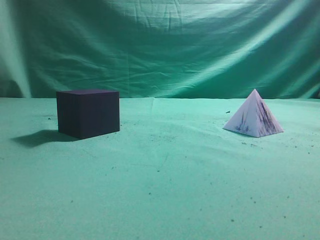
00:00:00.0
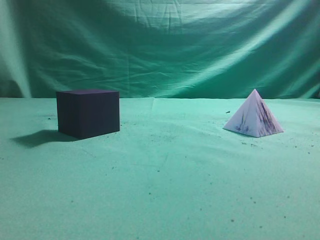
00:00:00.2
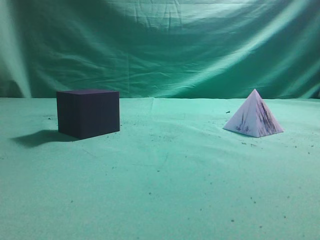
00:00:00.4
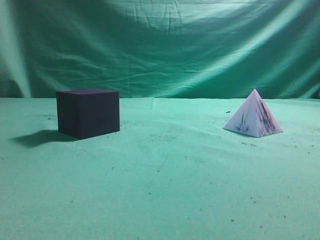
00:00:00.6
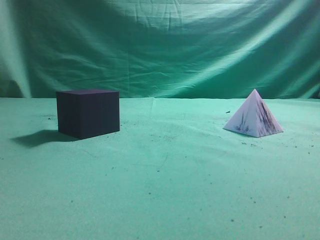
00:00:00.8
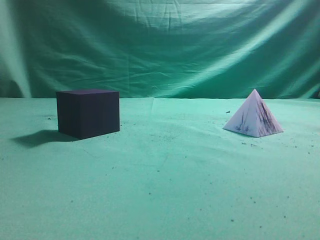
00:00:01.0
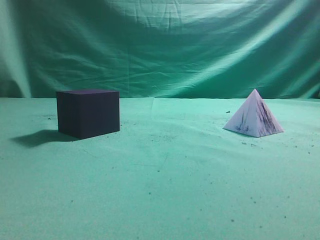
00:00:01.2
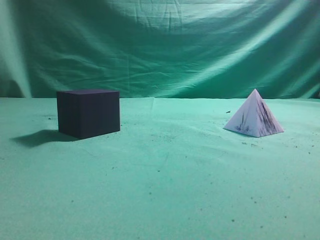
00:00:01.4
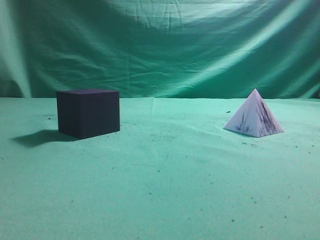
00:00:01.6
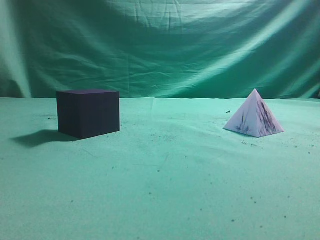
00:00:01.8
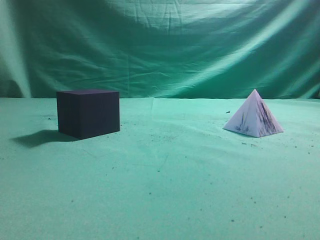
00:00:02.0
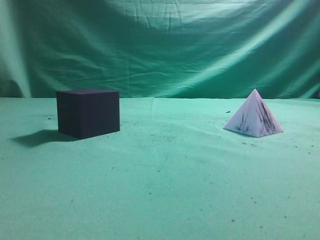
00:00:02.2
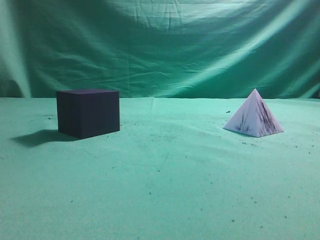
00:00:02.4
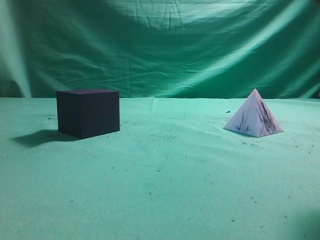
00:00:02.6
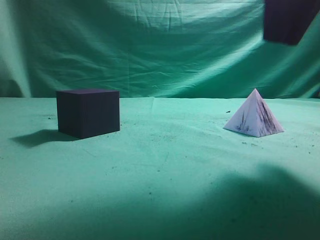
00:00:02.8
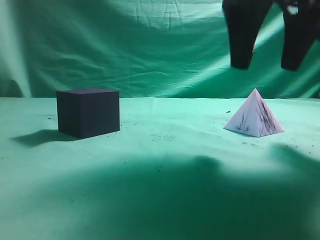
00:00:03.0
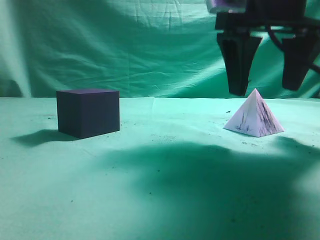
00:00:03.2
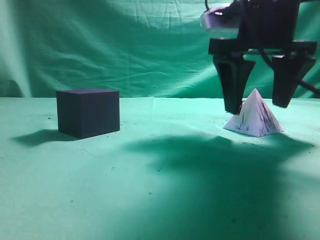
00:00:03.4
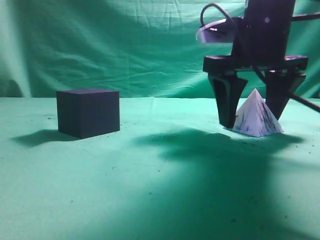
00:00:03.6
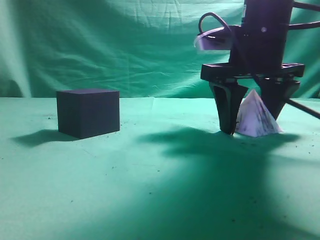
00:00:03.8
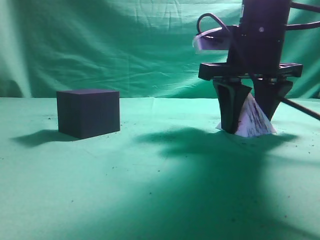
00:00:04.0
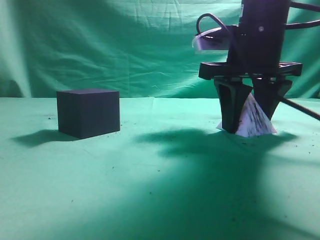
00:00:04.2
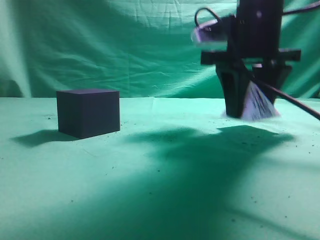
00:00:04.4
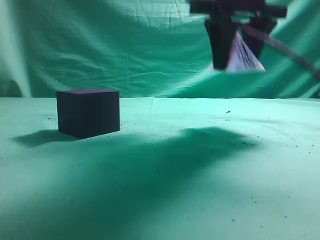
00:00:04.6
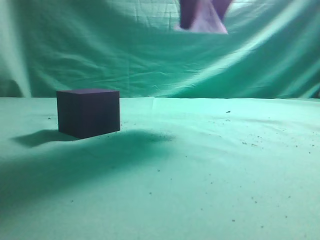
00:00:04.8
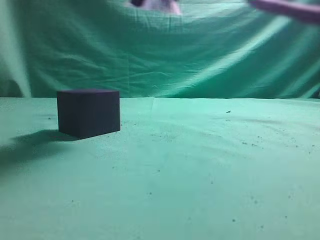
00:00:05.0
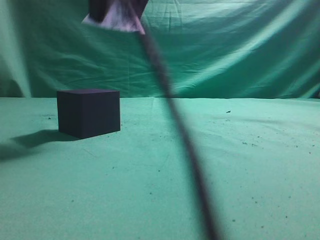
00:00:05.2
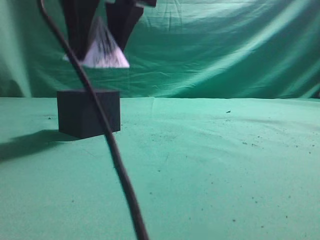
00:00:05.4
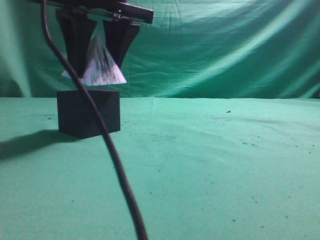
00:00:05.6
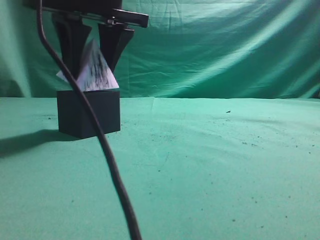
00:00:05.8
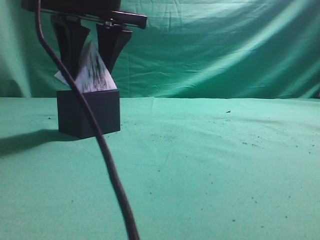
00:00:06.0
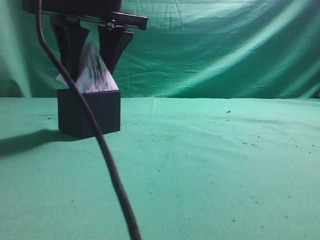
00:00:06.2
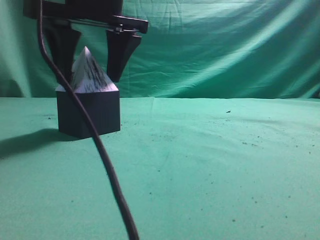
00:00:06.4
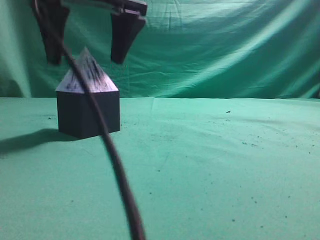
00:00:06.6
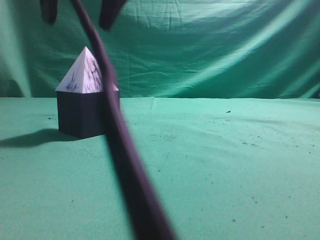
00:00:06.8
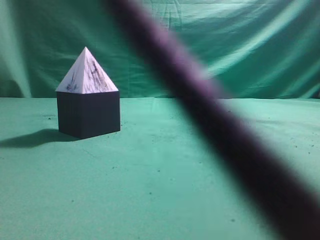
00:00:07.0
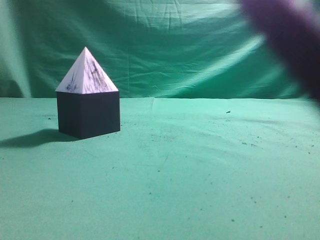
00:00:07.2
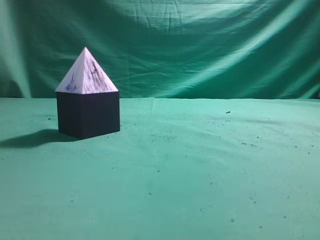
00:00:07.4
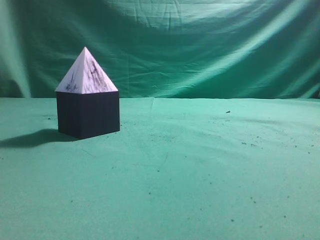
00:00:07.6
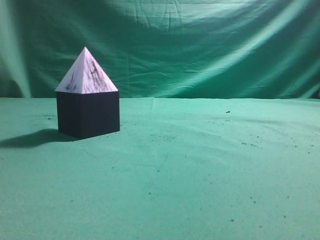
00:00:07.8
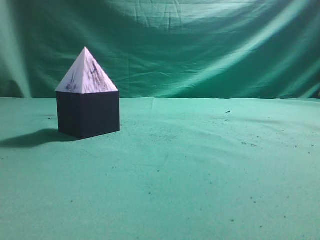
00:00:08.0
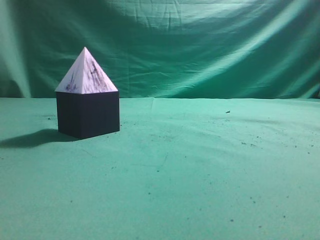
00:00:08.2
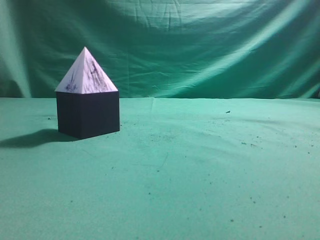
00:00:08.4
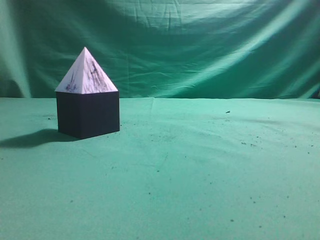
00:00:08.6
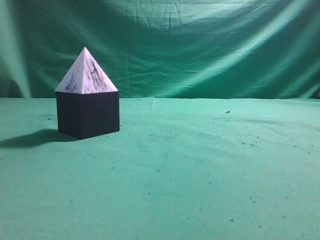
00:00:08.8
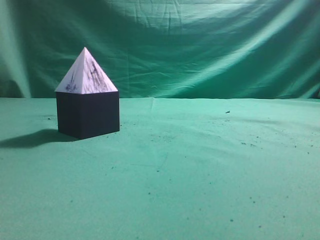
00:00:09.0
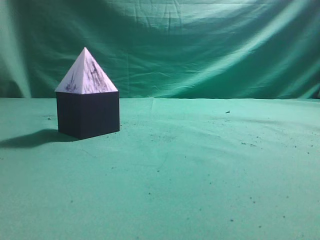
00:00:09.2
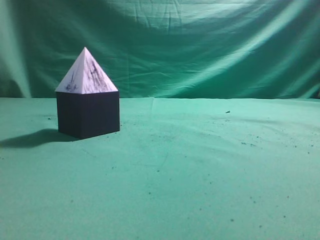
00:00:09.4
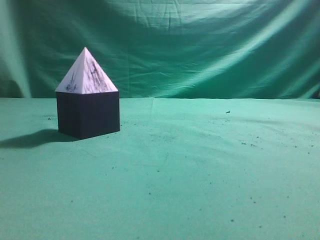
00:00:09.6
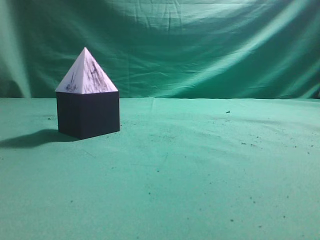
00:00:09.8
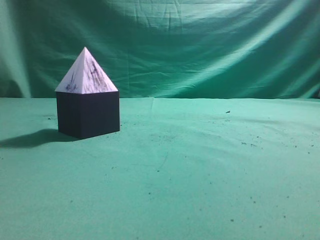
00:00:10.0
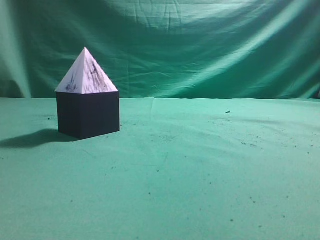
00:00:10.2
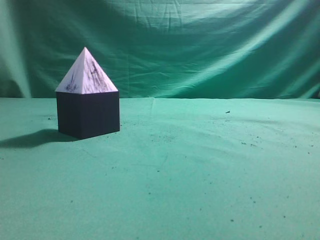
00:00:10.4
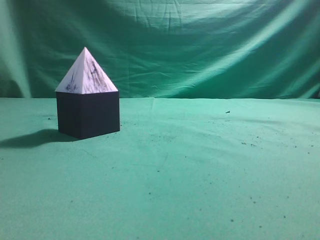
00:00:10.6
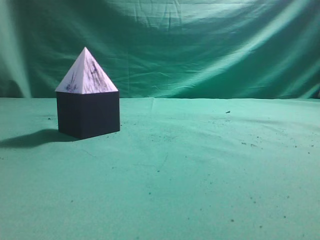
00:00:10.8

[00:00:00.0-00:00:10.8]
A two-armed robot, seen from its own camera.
Task of the whole recording: pick up the square pyramid from the table and place it on the cube block.
Step, 00:00:00.0 to 00:00:04.4: Grasp the triangular block.
Step, 00:00:04.6 to 00:00:06.6: Place the block onto the cube-shaped block.
00:00:01.6 to 00:00:03.0: The right gripper moves forward and to the left, some 30 cm, and opens.
00:00:03.0 to 00:00:04.6: The right gripper heads forward, covering about 5 cm, and reaches approximately 10 cm downward, then returns.
00:00:04.6 to 00:00:06.2: The right gripper heads to the left, covering some 20 cm.
00:00:06.2 to 00:00:07.8: The right gripper moves to the right, upward and backward, approximately 35 cm, and closes up.
